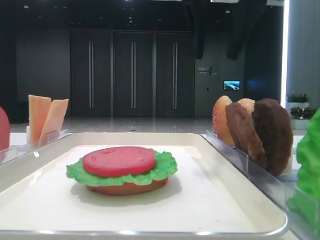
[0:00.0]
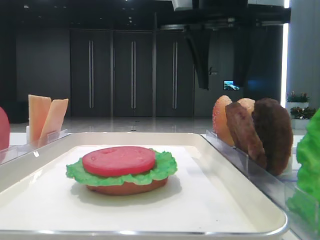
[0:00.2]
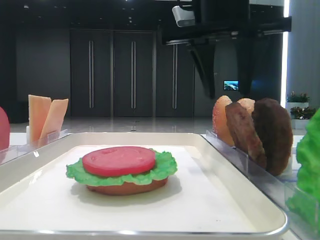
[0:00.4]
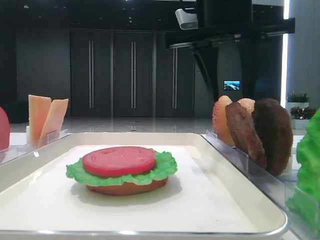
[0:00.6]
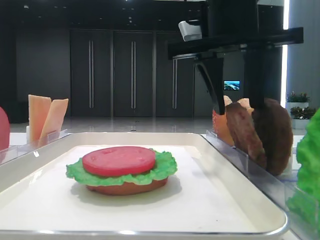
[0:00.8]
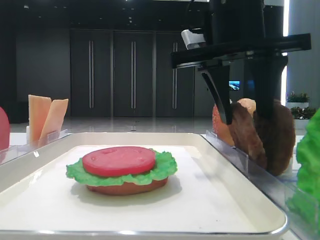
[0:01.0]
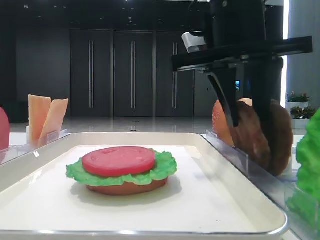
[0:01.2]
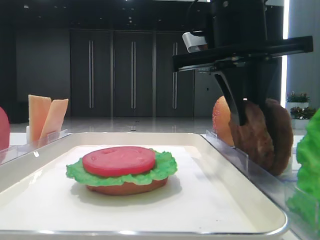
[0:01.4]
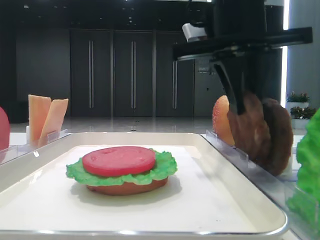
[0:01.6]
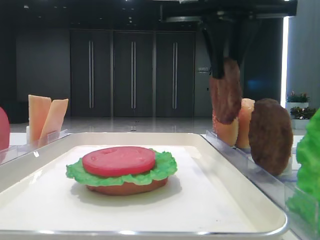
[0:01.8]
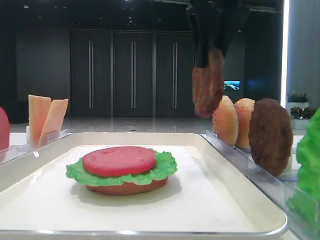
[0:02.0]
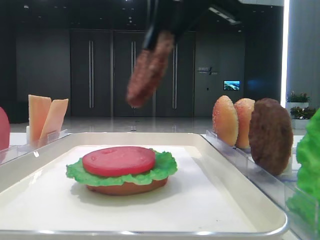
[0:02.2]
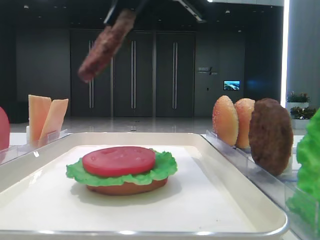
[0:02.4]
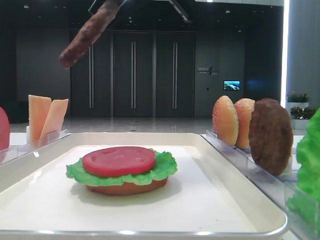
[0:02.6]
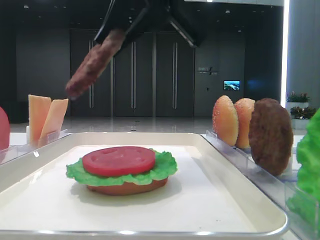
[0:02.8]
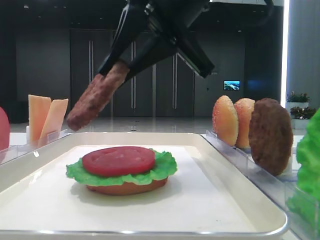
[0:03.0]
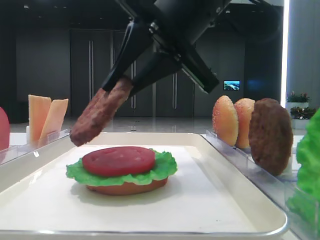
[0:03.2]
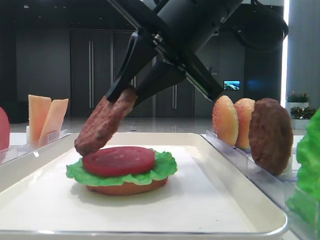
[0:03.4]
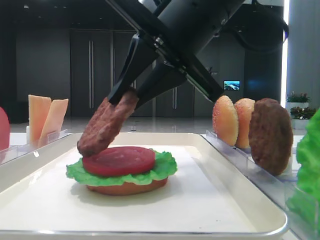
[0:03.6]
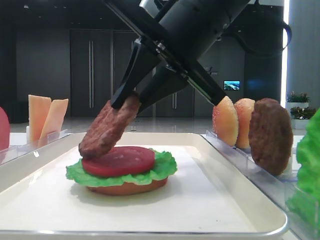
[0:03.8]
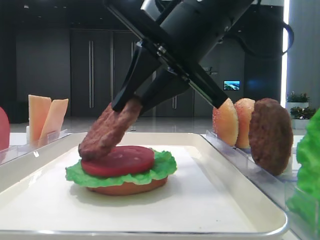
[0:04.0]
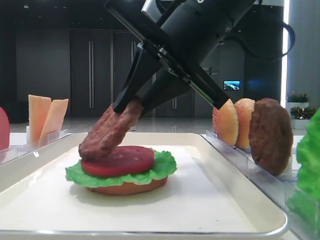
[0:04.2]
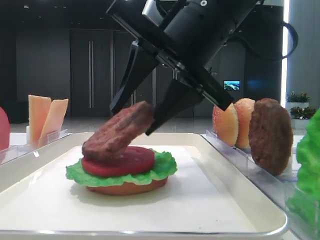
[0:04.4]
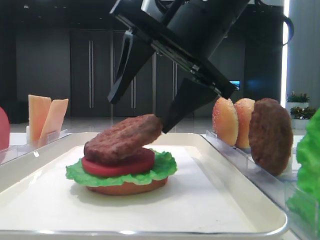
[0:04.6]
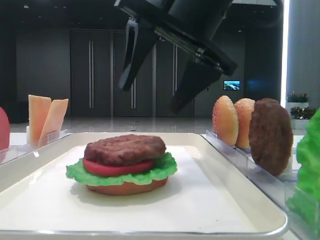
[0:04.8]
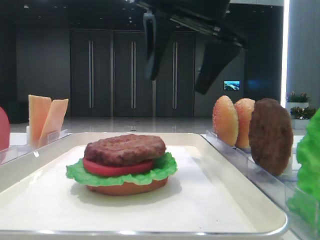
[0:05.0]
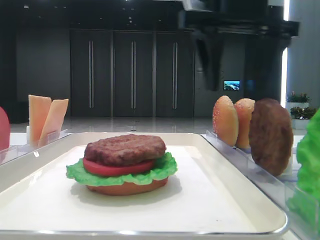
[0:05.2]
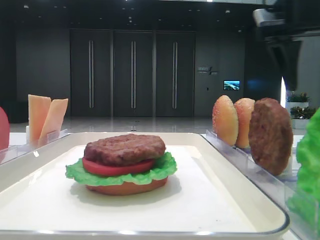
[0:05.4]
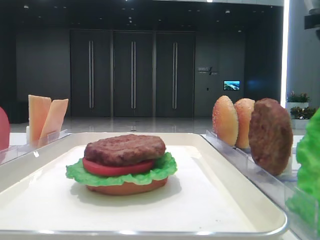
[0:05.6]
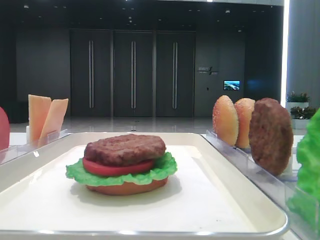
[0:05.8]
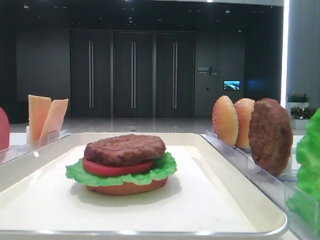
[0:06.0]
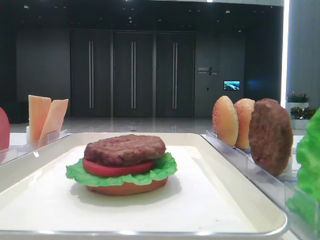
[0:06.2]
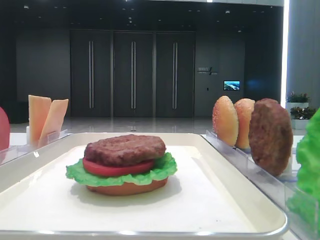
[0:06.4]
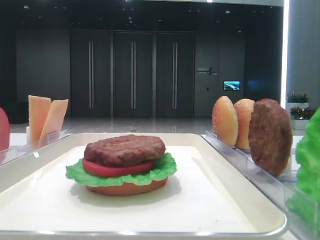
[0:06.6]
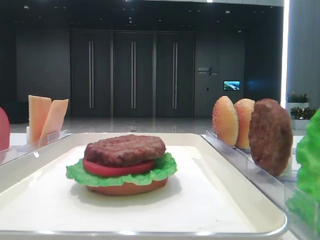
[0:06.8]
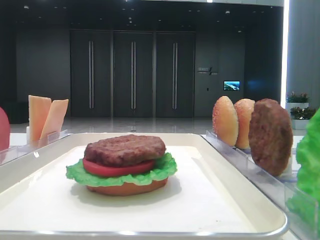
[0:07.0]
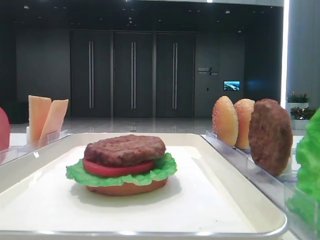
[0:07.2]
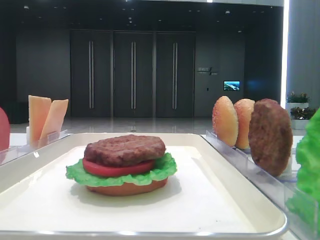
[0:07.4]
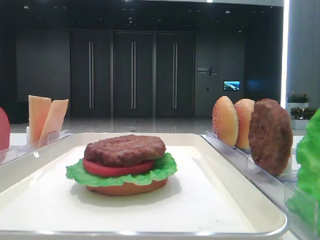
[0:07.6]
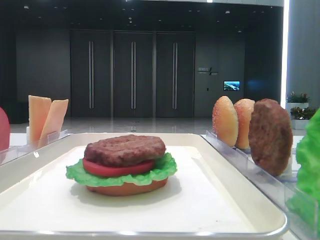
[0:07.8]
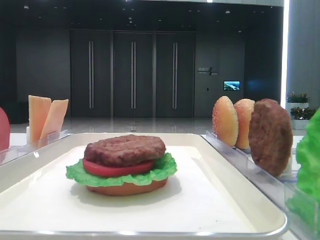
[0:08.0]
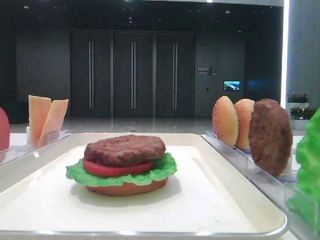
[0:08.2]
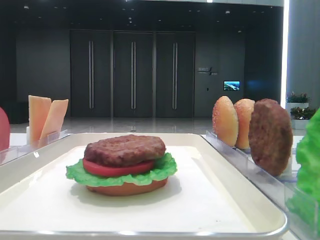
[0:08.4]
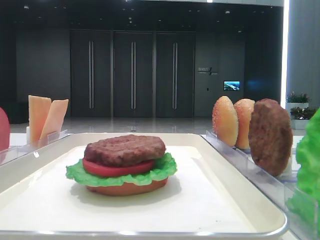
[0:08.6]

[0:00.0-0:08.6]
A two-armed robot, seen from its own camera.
Step, 0:01.4 to 0:04.6: Place the patty on the tomato slice with the right hand.
0:00.0 to 0:01.4: The right gripper moves downward, roughly 10 cm, and closes its fingers.
0:01.4 to 0:02.8: The right gripper travels upward and to the left by about 10 cm.
0:02.8 to 0:04.4: The right gripper shifts roughly 10 cm downward.
0:04.4 to 0:05.8: The right gripper heads to the right, covering roughly 25 cm, and opens up.
0:05.8 to 0:07.2: The right gripper moves backward, approximately 35 cm.
0:07.2 to 0:08.6: Both grippers stay put.

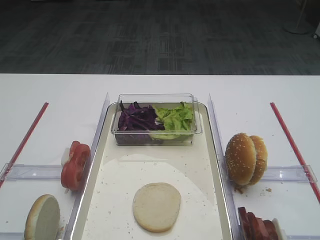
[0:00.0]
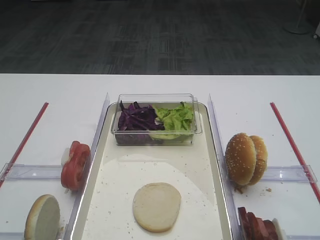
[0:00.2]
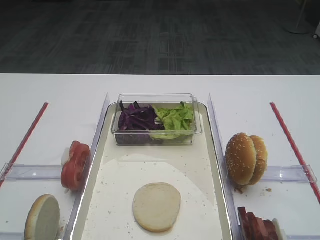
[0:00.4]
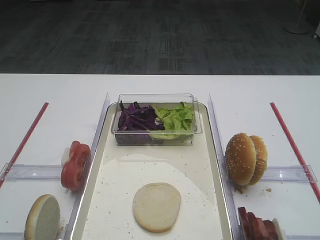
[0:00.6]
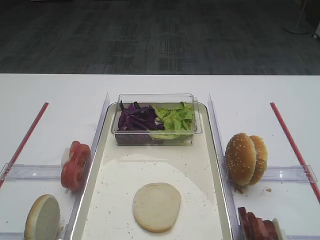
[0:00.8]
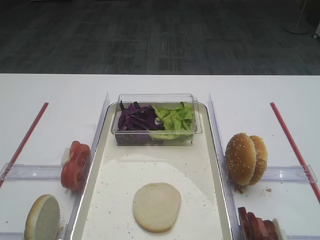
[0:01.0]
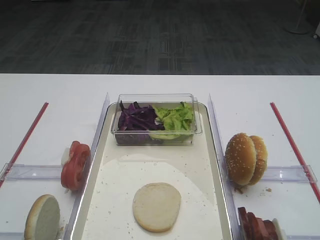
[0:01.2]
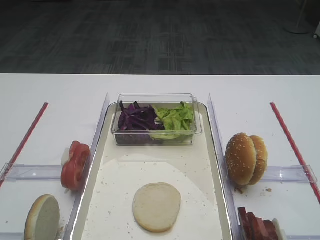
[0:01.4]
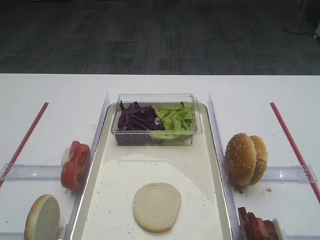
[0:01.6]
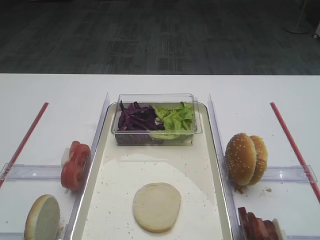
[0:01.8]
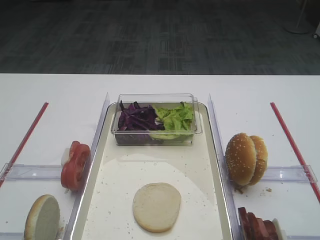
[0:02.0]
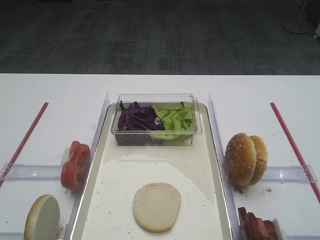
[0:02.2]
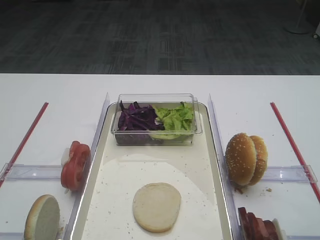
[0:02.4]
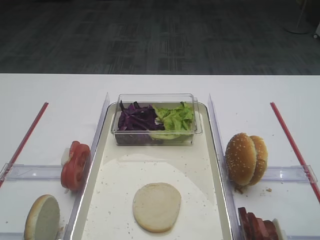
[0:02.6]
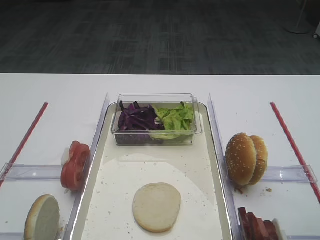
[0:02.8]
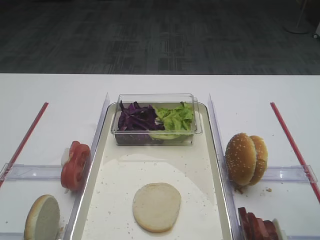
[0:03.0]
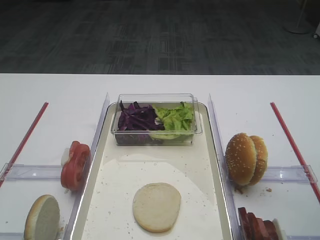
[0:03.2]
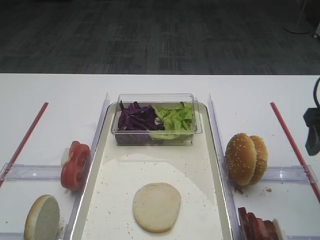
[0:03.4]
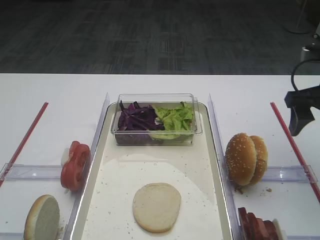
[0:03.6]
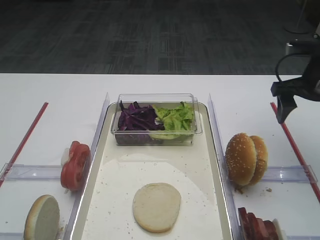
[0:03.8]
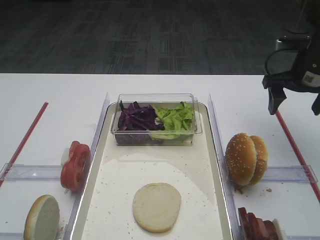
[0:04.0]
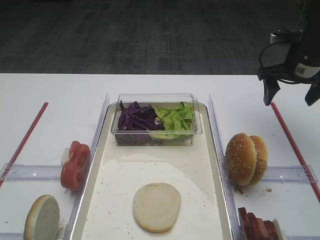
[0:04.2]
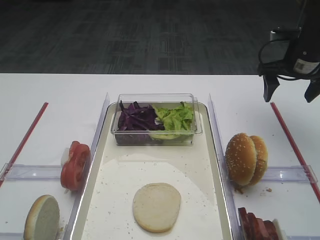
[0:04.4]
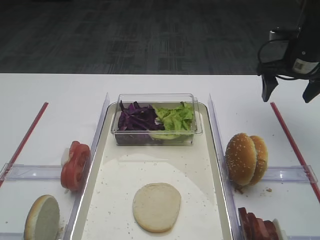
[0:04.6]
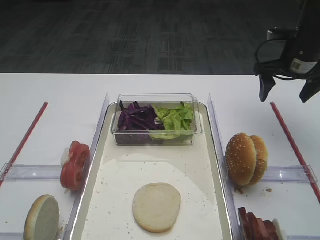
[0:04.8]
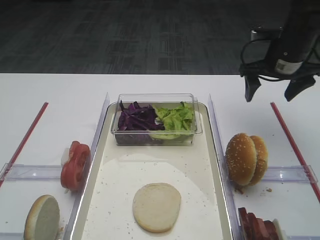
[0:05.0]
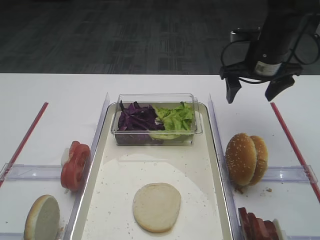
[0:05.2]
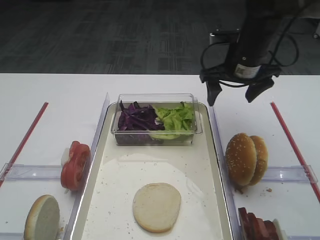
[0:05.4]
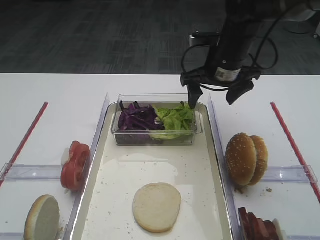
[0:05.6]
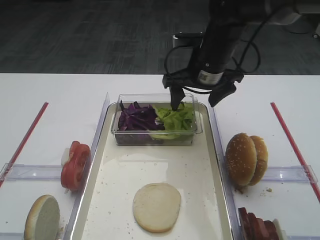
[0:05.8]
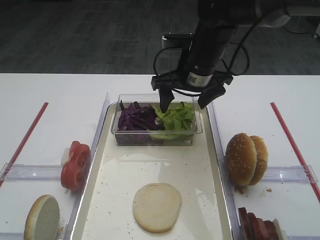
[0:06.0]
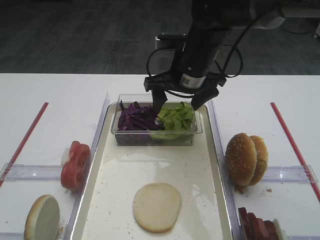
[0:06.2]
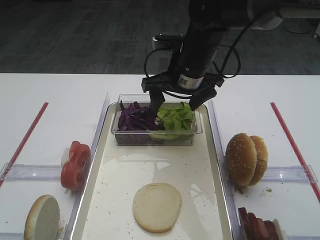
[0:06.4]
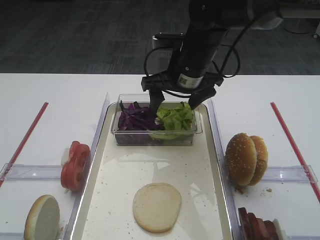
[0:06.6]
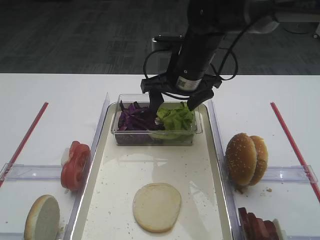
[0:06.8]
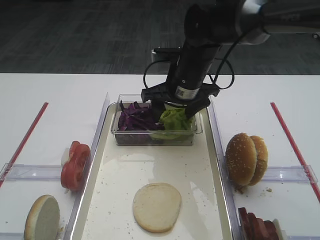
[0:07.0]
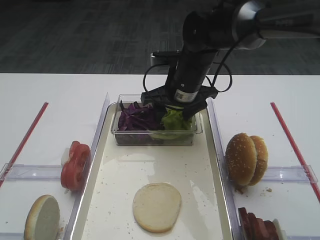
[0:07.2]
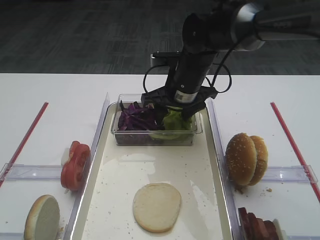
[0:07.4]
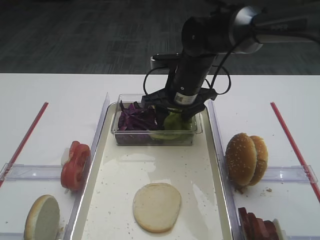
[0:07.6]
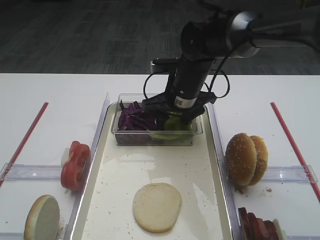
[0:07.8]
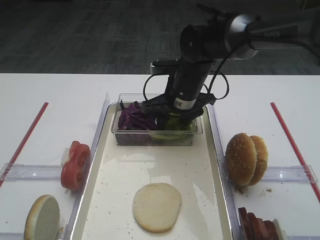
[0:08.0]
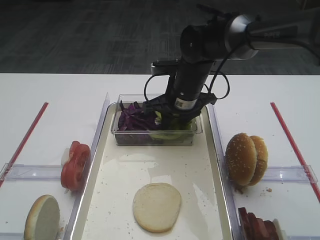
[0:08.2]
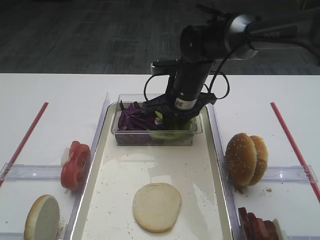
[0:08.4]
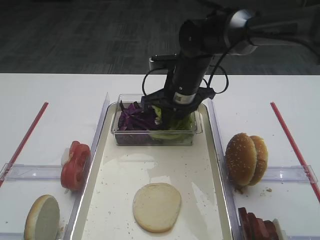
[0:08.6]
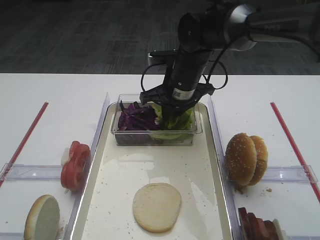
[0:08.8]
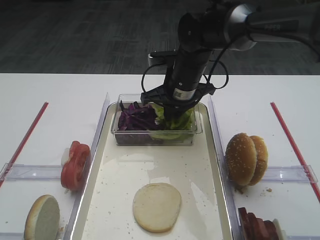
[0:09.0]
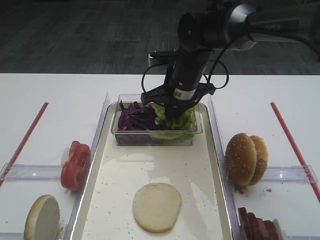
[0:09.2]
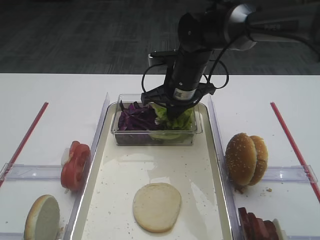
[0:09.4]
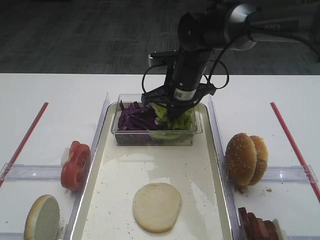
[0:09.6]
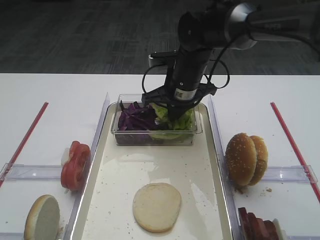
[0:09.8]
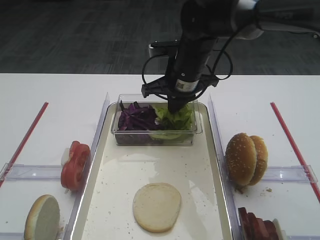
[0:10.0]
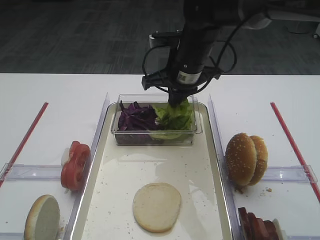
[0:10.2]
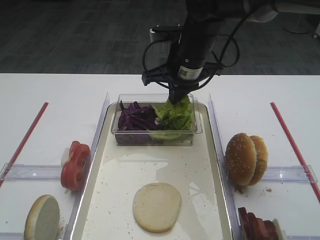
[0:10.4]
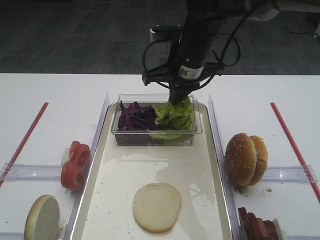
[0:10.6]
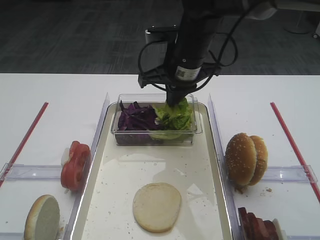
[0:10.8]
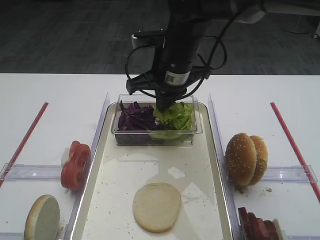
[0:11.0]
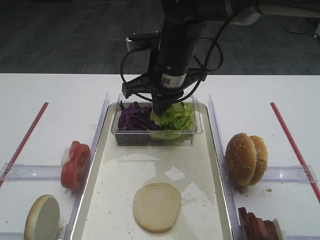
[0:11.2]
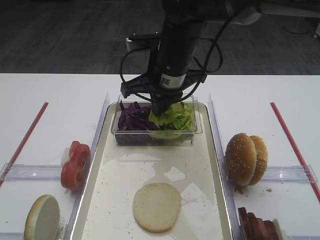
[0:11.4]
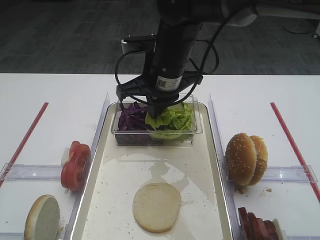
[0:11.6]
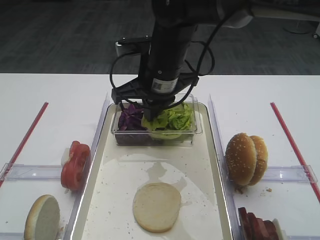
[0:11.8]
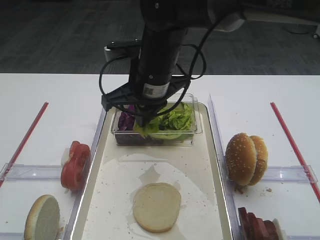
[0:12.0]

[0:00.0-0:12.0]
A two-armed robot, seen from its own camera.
Step, 0:00.0 to 0:10.8: Pick up the lettuce leaf with the right gripper.
0:03.0 to 0:04.4: The right gripper heads forward, covering about 30 cm.
0:04.4 to 0:06.0: The right gripper is displaced to the left by roughly 20 cm.
0:06.0 to 0:07.6: The right gripper moves approximately 5 cm.
0:07.6 to 0:09.0: The right gripper closes up.
0:09.0 to 0:10.4: The right gripper is displaced upward by roughly 5 cm.
0:10.4 to 0:12.0: The right gripper moves to the left and backward, approximately 10 cm.

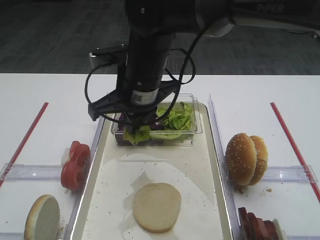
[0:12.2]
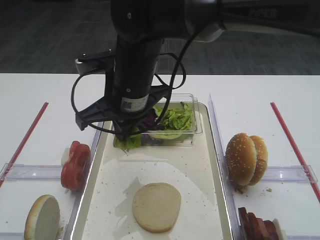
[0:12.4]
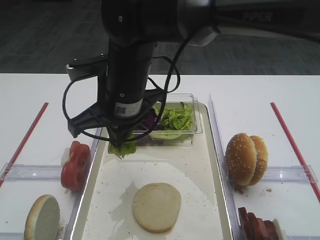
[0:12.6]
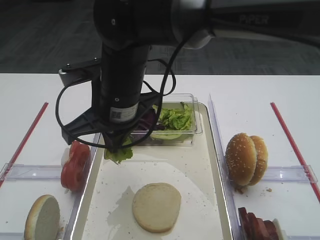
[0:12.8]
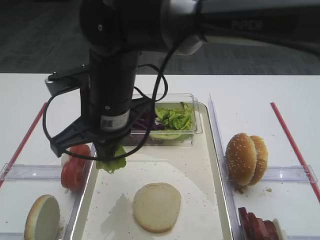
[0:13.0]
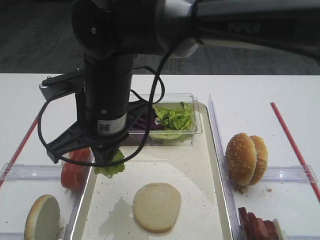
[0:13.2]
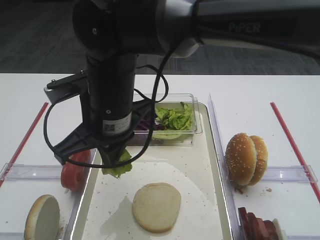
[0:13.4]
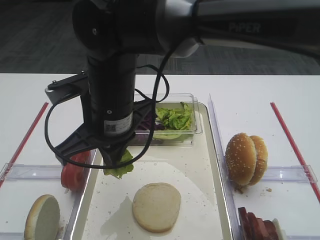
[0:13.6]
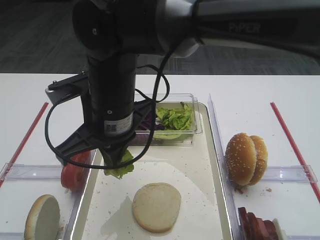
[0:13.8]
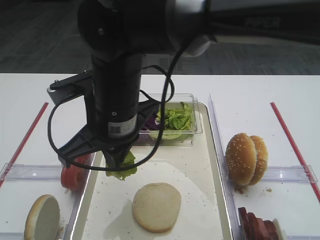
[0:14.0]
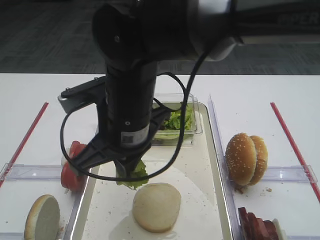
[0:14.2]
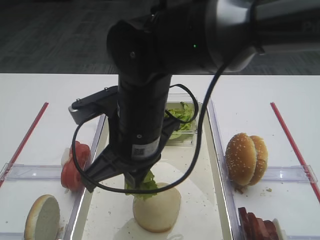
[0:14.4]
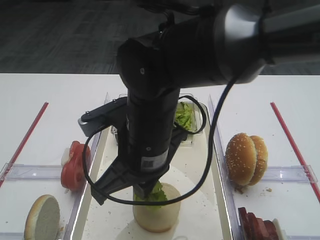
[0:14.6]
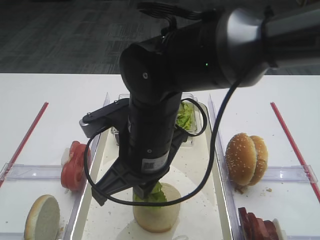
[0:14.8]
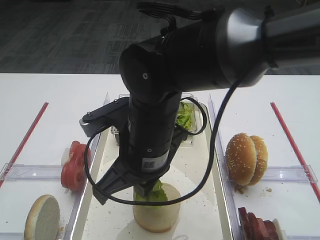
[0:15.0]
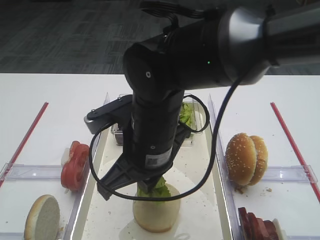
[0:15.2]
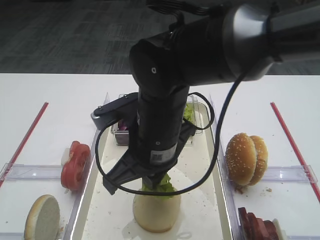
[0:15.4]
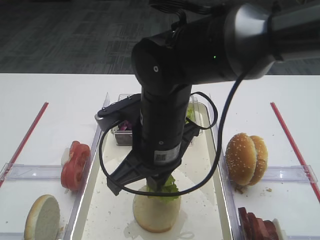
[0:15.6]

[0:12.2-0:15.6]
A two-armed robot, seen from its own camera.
0:12.2 to 0:13.8: The right gripper is displaced backward by roughly 5 cm.
0:13.8 to 0:15.6: The right gripper goes roughly 5 cm to the right.
